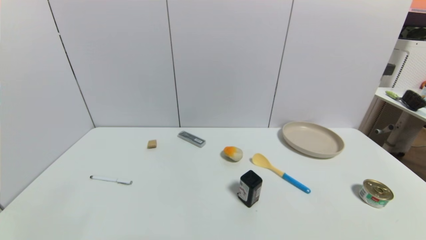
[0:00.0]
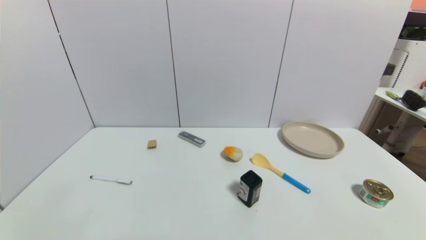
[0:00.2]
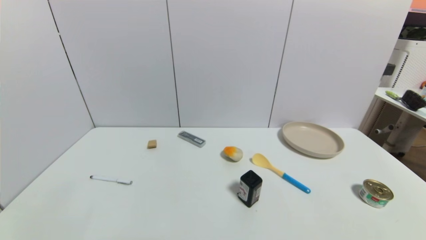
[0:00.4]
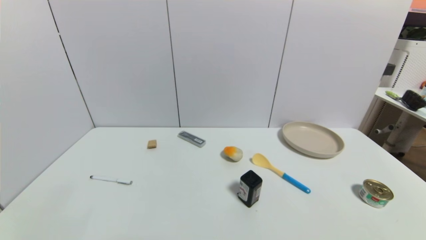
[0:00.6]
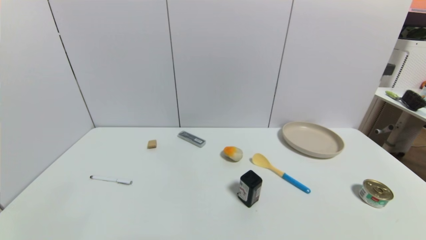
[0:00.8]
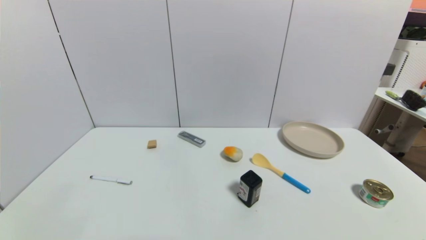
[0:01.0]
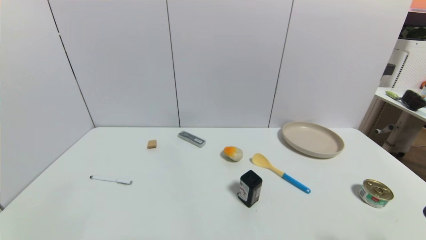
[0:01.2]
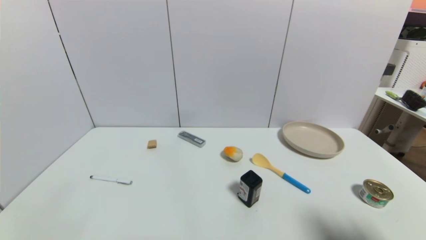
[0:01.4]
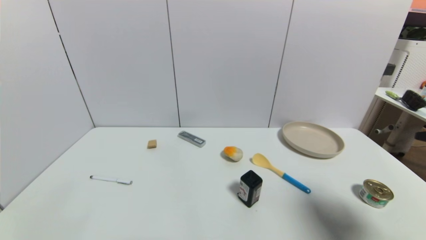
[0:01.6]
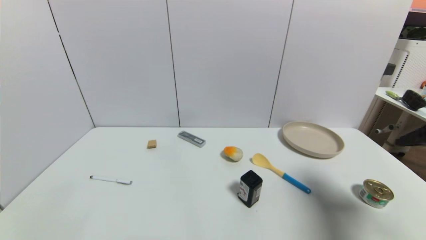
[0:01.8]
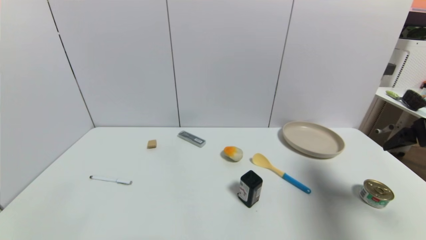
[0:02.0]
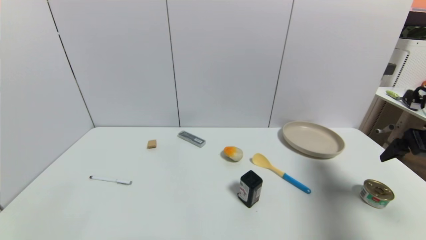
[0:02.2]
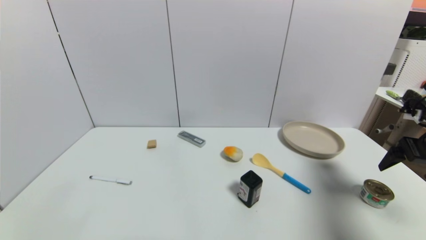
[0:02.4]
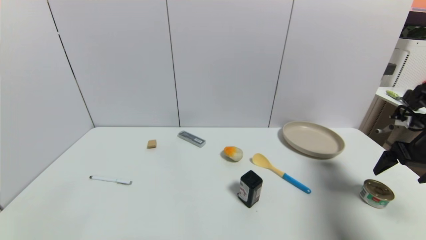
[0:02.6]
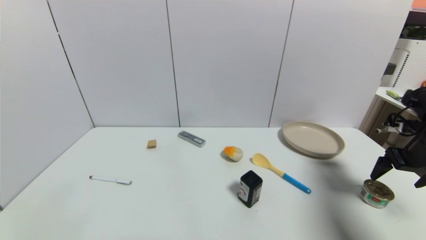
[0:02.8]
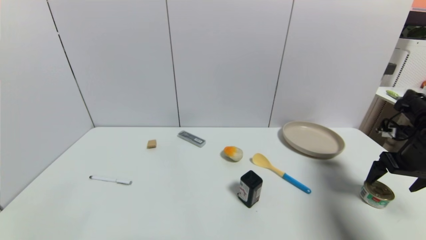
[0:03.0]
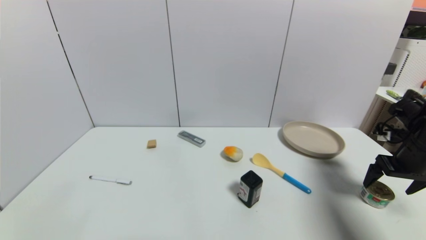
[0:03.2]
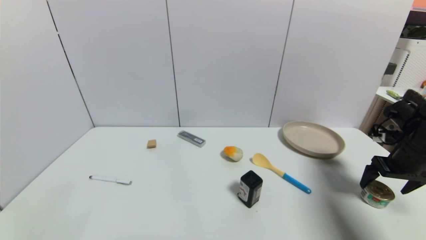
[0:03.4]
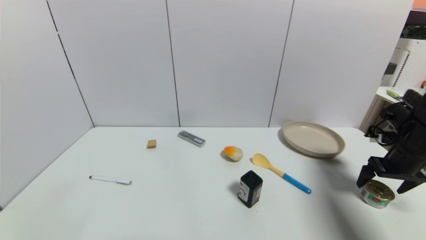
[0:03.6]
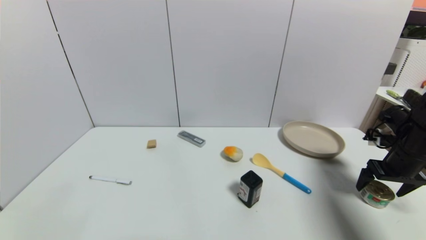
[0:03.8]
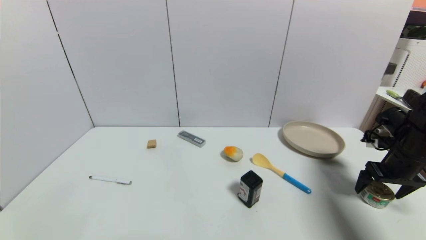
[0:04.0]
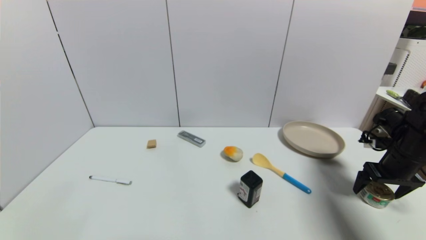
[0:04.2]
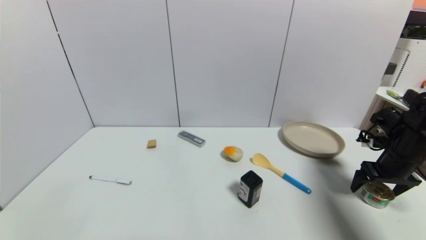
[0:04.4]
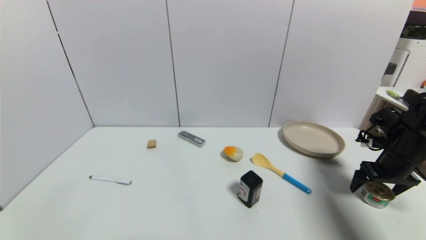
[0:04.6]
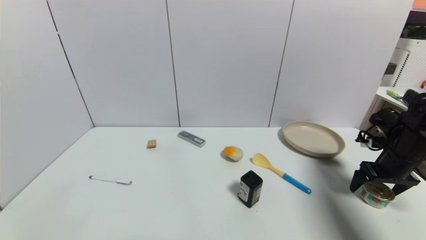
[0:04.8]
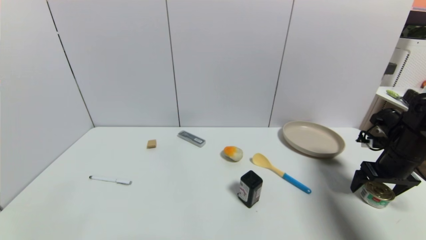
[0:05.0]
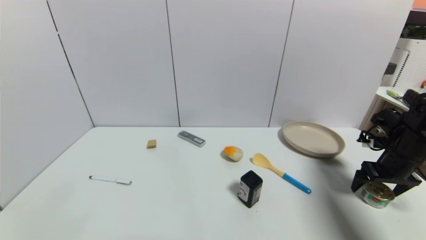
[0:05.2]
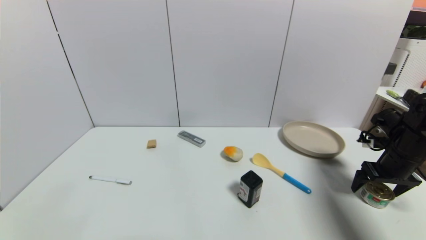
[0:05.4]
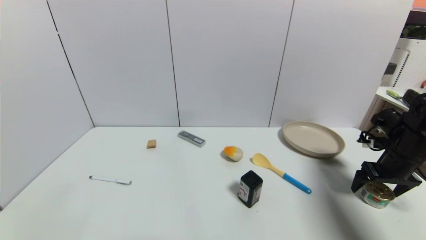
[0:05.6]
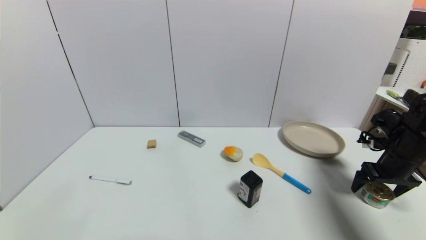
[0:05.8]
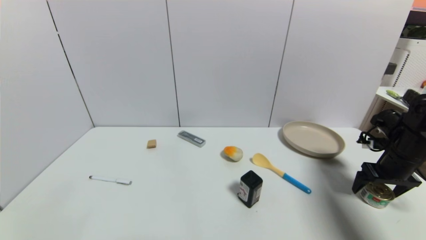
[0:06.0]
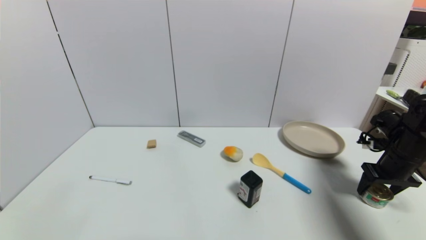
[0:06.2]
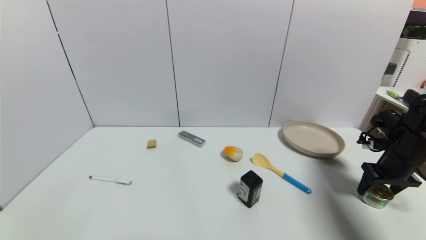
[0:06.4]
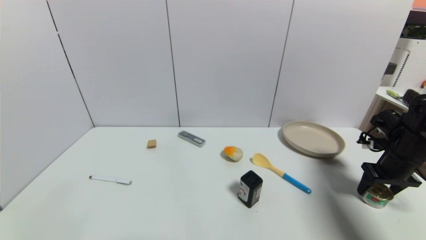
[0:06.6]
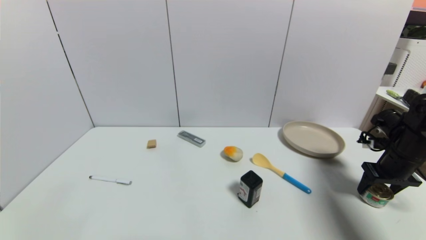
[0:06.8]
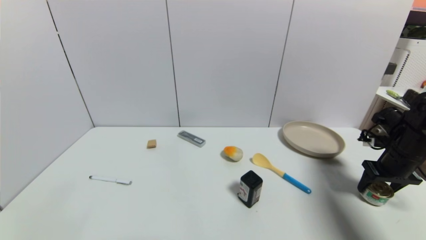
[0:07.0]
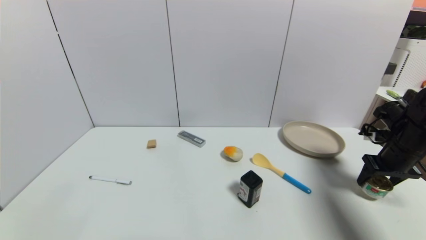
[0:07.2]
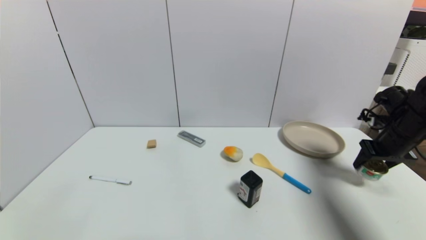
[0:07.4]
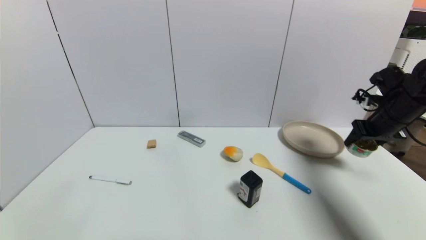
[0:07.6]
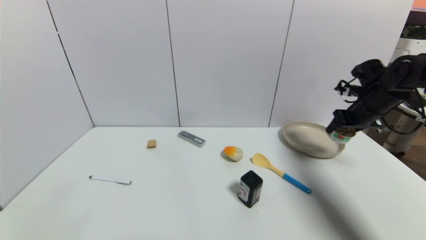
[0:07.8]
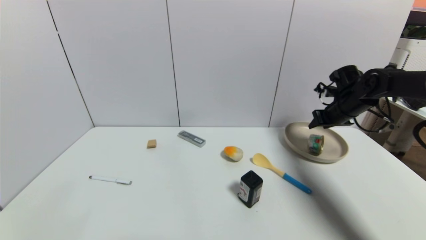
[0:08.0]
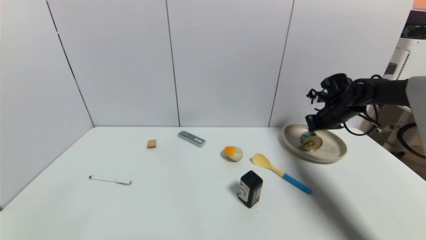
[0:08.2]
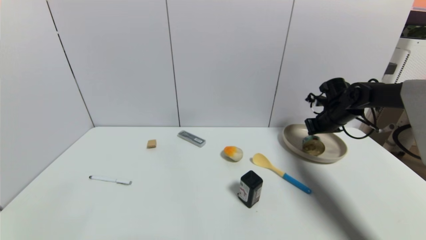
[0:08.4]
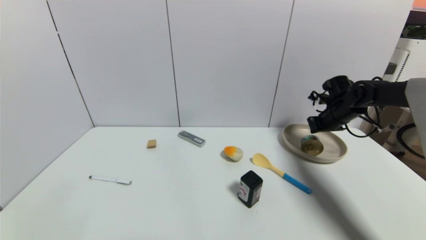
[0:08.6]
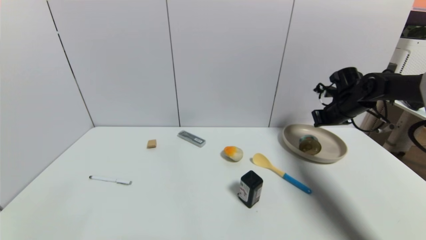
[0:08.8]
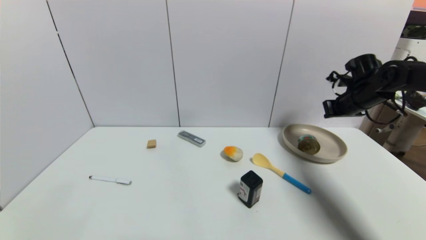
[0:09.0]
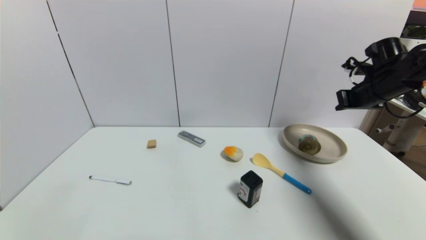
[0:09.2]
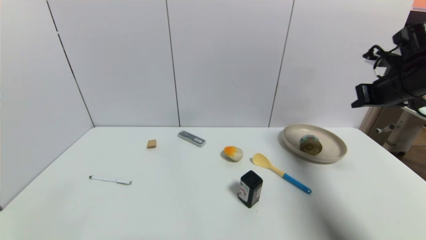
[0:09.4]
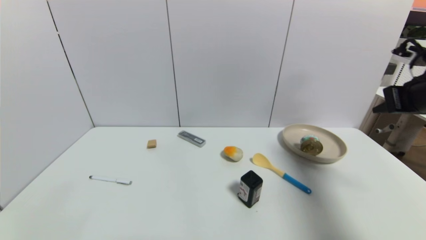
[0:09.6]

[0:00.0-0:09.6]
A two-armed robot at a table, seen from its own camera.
Task of the whole recording: use a gripper to pick the target object and place on the brown plate.
Step, 0:00.0 to 0:06.4: Grasp the tin with the right gripper.
Step, 0:06.6 to 0:08.8: Place the tin on the brown plate with the right gripper.
0:00.0 to 0:01.6: The right gripper moves upward and forward, about 25 cm.
0:01.6 to 0:03.2: The right gripper heads forward and downward, covering approximately 20 cm.
0:03.2 to 0:04.8: The grippers make only small movements.
0:04.8 to 0:06.4: The right gripper closes its fingers.
0:06.4 to 0:08.0: The right gripper goes some 15 cm forward and to the left.
0:08.0 to 0:09.6: The right gripper heads backward and upward, covering about 20 cm, and closes up.

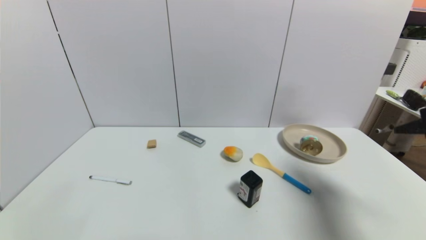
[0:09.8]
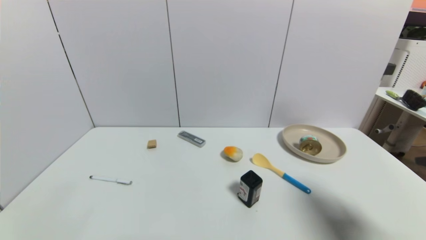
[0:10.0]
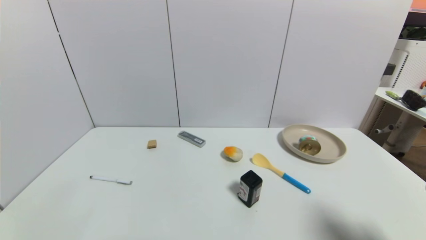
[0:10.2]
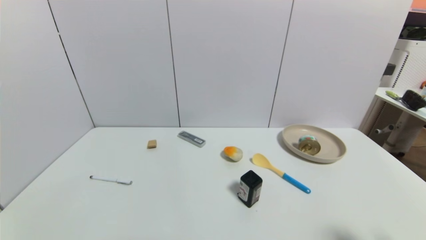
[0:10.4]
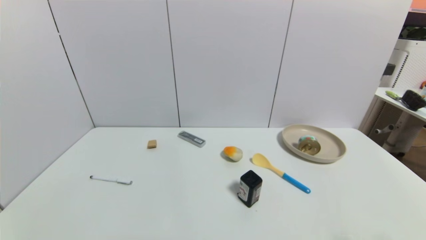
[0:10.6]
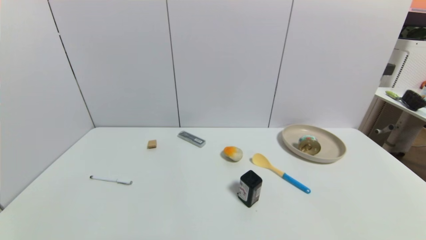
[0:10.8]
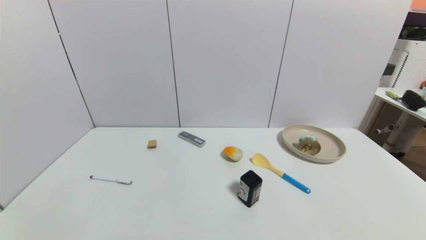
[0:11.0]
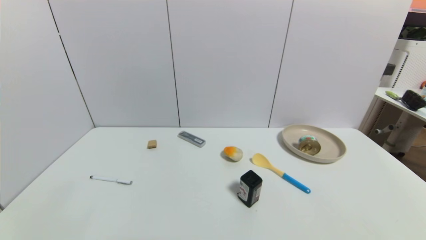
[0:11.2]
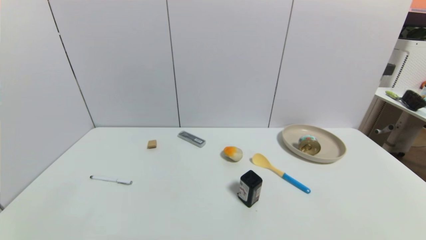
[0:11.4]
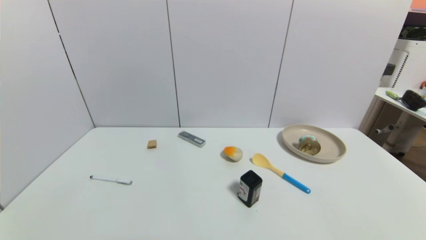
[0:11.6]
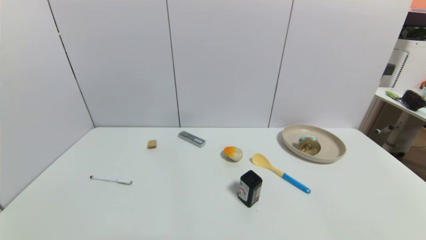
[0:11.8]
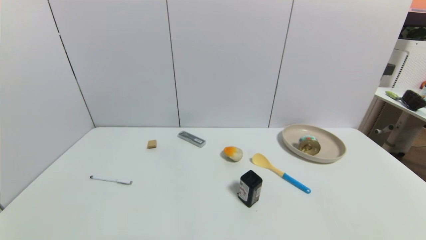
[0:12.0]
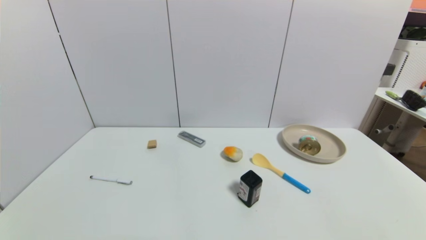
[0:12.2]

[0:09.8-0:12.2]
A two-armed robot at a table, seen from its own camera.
Task of the whole recording: use a gripper to pick the target object and place on the brown plate.
0:09.8 to 0:11.0: The right gripper travels downward and backward by approximately 30 cm, and opens up.
